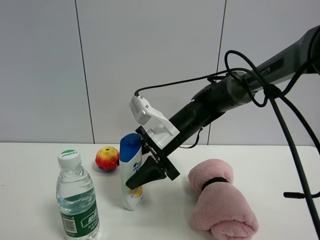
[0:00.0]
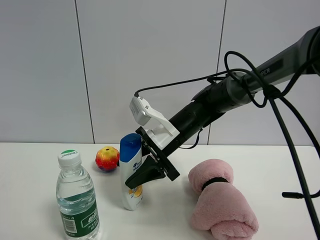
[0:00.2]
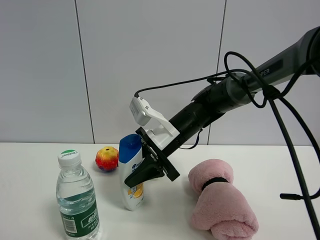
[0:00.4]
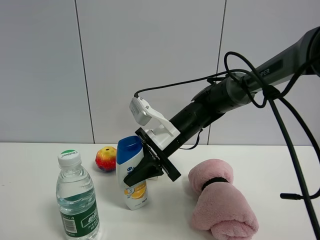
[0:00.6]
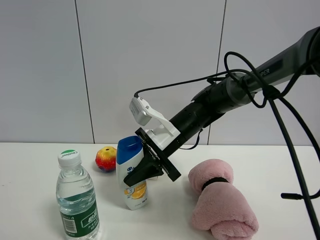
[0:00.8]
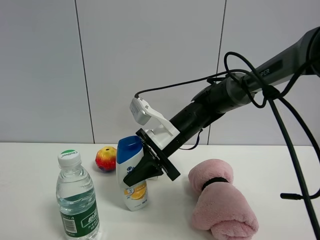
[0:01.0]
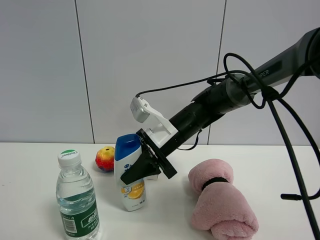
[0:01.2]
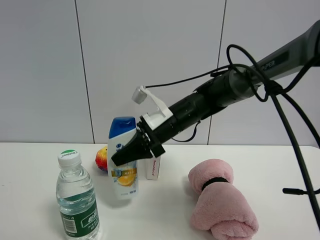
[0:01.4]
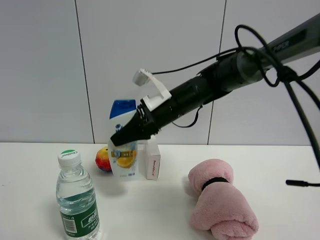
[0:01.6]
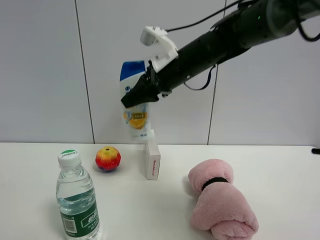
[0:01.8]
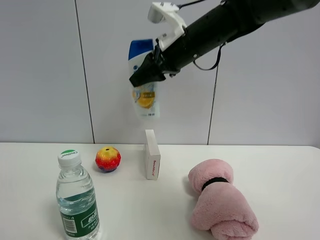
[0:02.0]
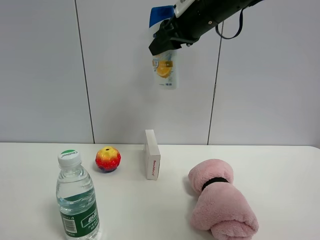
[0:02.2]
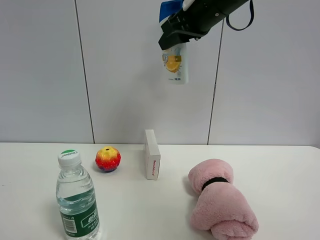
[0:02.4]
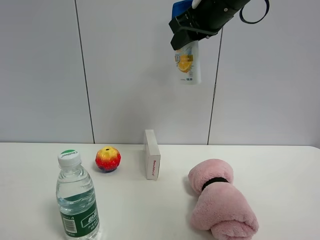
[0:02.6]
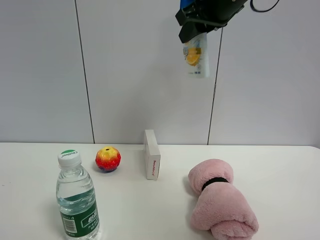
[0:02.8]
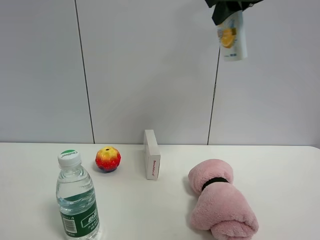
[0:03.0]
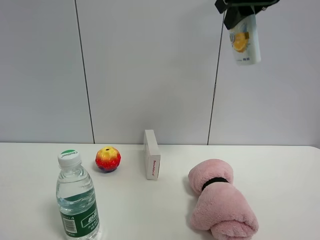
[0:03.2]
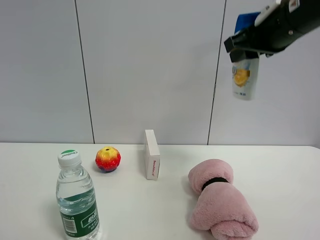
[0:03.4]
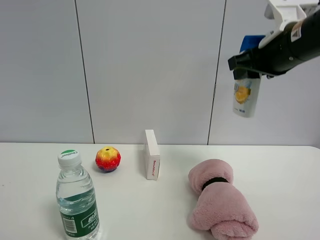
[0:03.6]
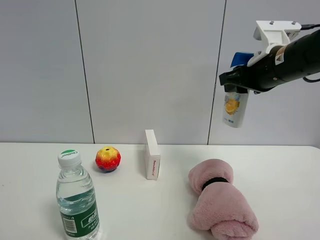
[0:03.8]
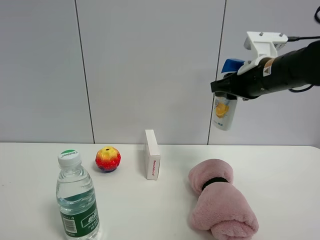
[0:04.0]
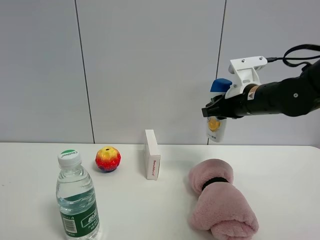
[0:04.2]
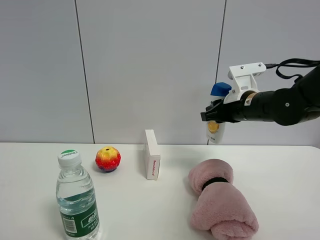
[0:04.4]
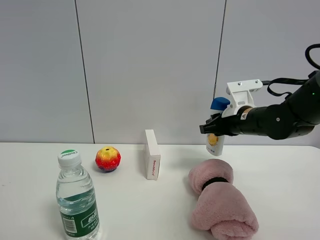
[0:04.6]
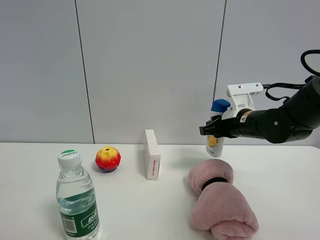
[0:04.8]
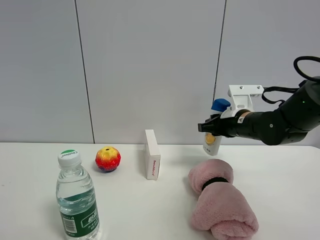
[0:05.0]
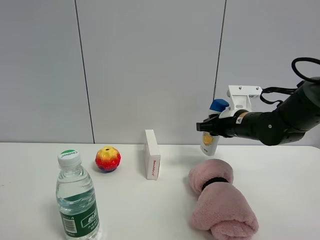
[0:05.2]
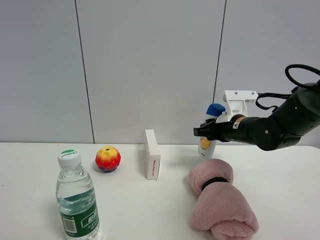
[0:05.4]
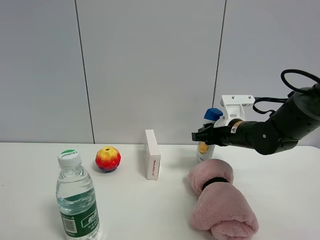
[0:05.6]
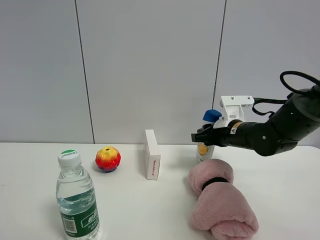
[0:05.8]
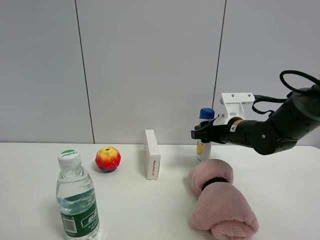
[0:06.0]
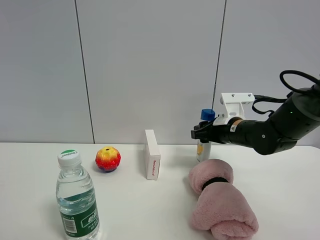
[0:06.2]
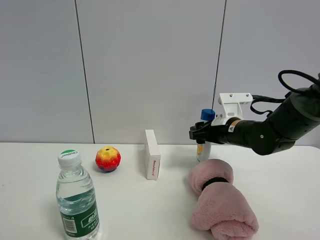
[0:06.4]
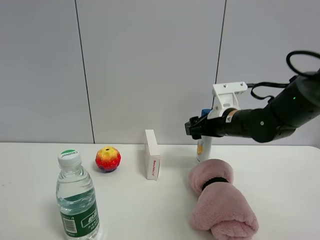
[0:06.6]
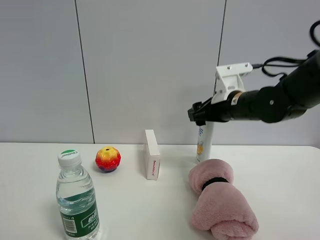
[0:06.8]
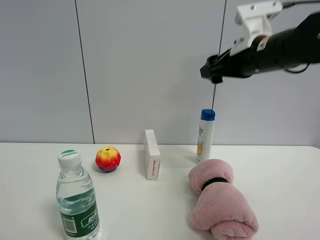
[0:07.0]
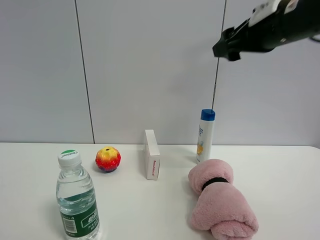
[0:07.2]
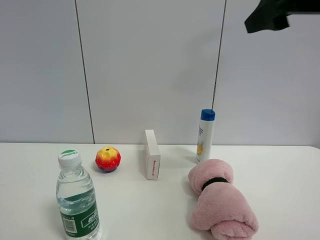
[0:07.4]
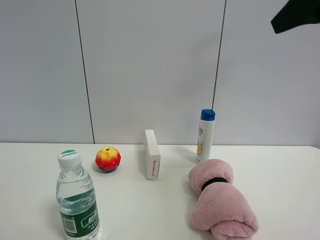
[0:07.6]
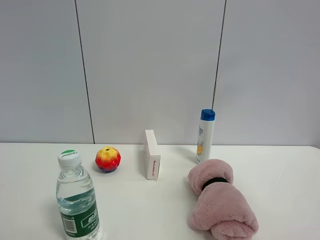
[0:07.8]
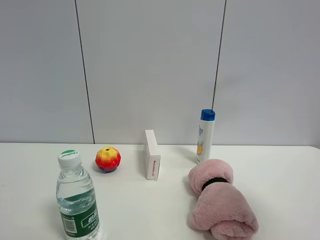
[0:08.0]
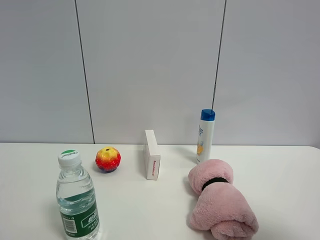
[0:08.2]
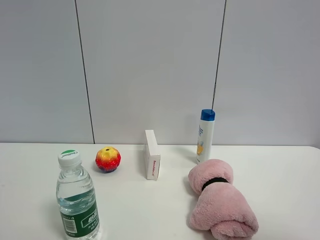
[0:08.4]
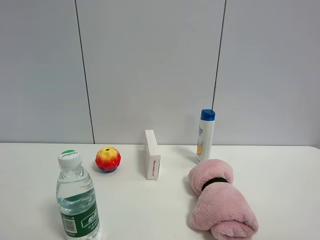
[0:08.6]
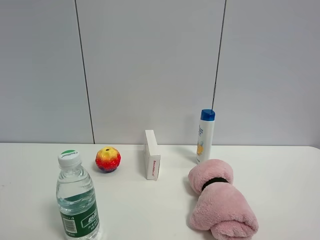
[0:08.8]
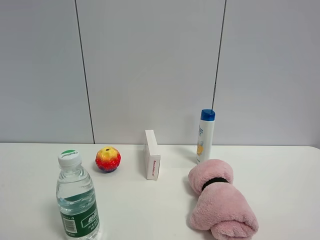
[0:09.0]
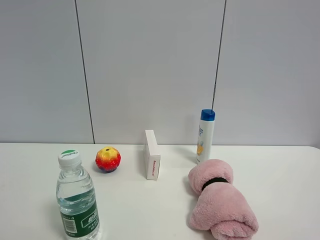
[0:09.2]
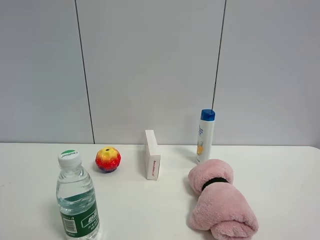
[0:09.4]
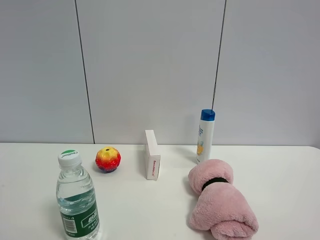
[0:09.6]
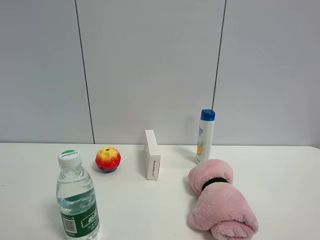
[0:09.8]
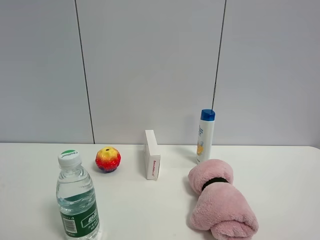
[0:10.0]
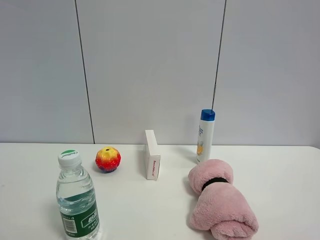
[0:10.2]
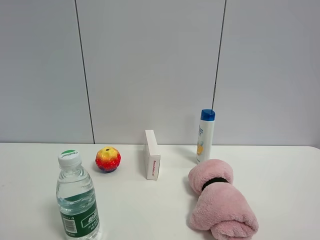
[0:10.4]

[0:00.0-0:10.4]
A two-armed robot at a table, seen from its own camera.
Task of the whole recording: the gripper move the object.
Step, 0:00.8 to 0:06.4: Place the shampoo on the table with the right gripper.
0:00.0 to 0:01.4: The right gripper closes its fingers.
0:01.4 to 0:03.0: The right gripper is displaced upward and to the right by approximately 30 cm.
0:03.0 to 0:04.4: The right gripper moves downward, roughly 25 cm.
0:04.4 to 0:06.0: The right gripper is displaced downward by roughly 5 cm, and opens its fingers.
0:06.0 to 0:07.4: The right gripper heads upward and backward, covering about 30 cm, and opens up.
0:07.4 to 0:09.0: The right gripper moves backward and downward, some 25 cm.
0:09.0 to 0:10.4: Both grippers stay put.

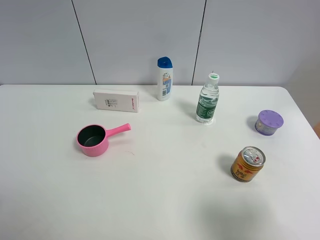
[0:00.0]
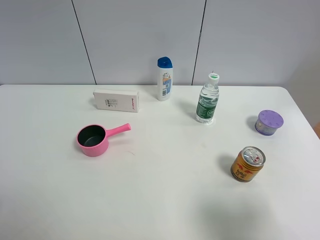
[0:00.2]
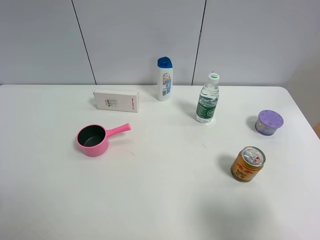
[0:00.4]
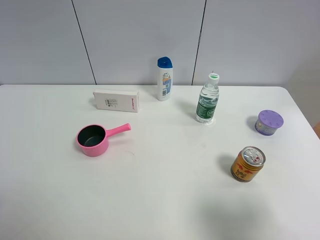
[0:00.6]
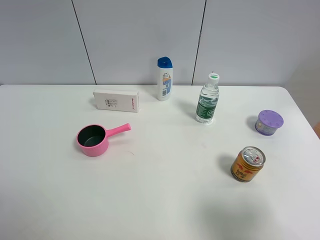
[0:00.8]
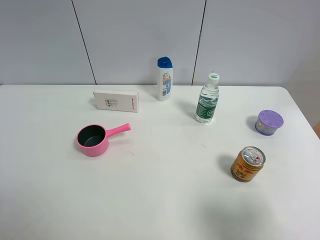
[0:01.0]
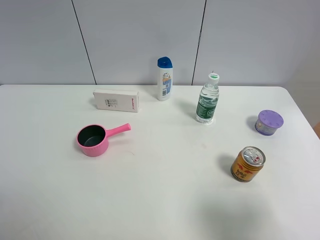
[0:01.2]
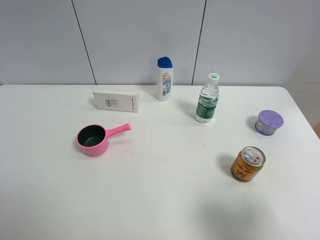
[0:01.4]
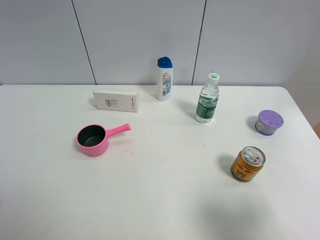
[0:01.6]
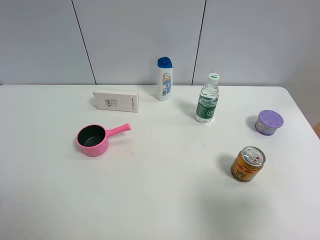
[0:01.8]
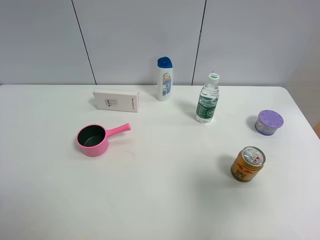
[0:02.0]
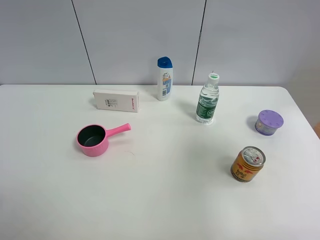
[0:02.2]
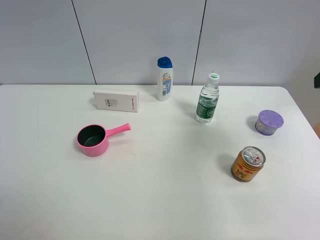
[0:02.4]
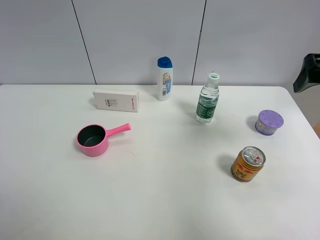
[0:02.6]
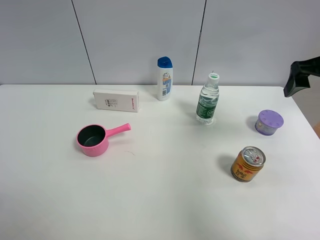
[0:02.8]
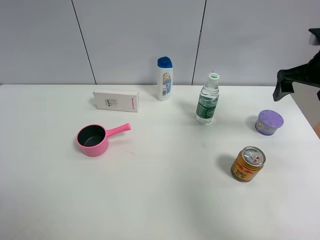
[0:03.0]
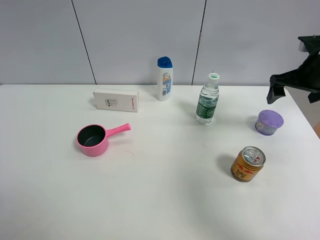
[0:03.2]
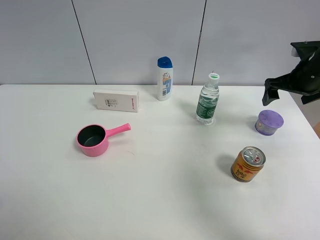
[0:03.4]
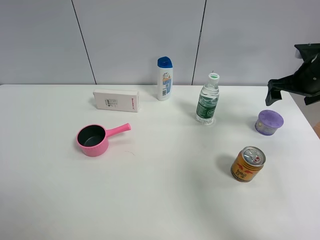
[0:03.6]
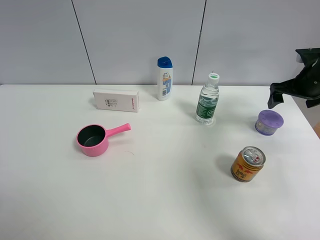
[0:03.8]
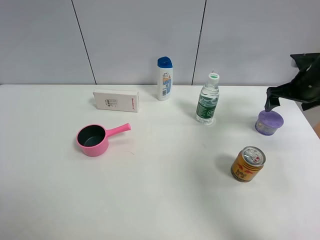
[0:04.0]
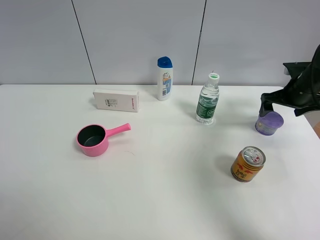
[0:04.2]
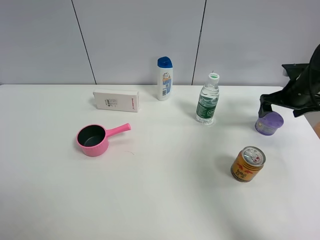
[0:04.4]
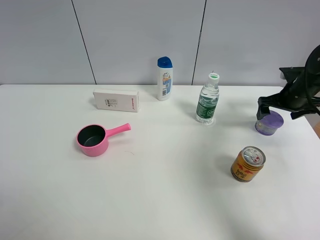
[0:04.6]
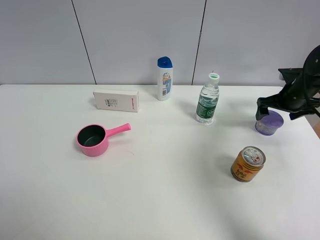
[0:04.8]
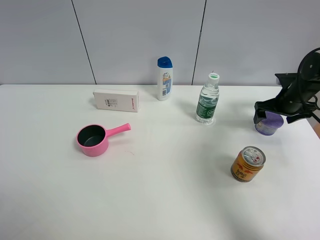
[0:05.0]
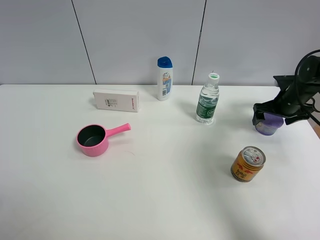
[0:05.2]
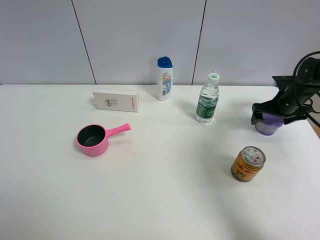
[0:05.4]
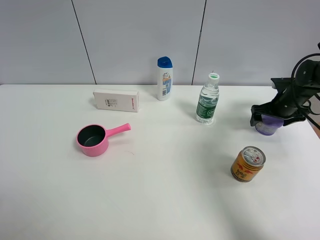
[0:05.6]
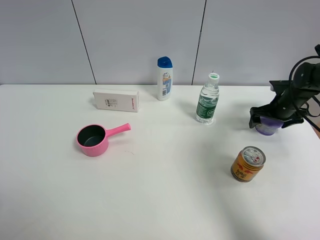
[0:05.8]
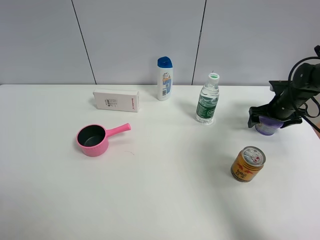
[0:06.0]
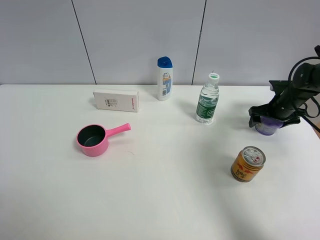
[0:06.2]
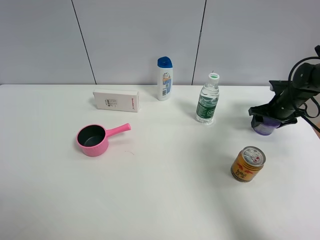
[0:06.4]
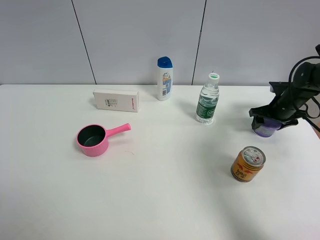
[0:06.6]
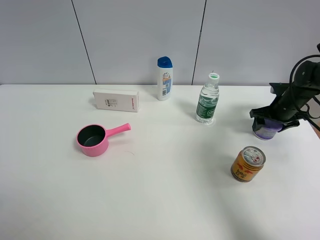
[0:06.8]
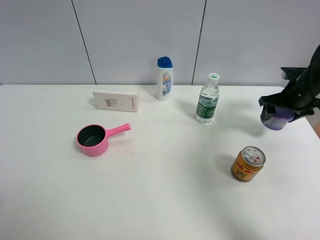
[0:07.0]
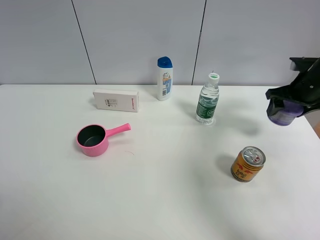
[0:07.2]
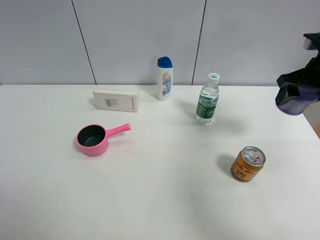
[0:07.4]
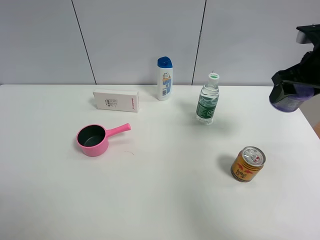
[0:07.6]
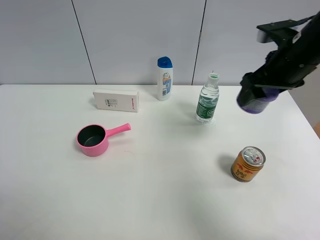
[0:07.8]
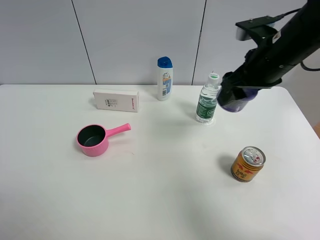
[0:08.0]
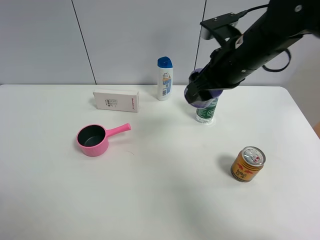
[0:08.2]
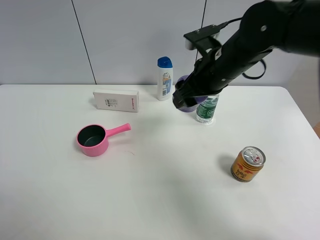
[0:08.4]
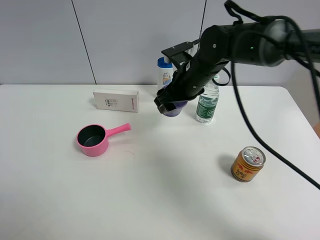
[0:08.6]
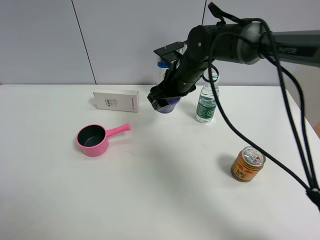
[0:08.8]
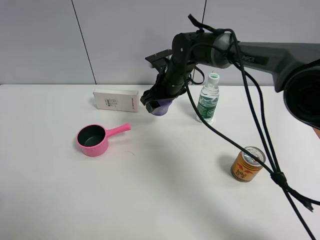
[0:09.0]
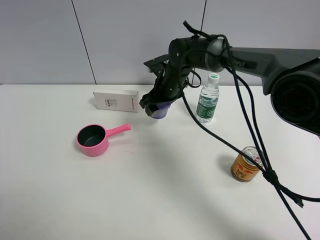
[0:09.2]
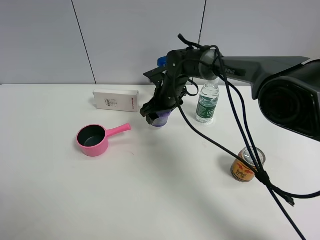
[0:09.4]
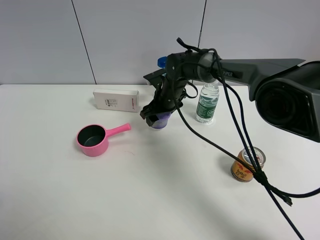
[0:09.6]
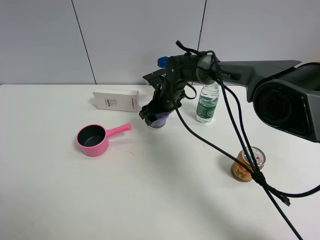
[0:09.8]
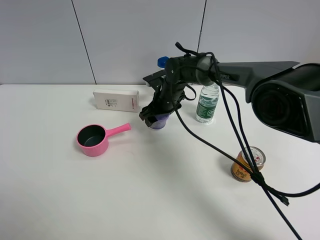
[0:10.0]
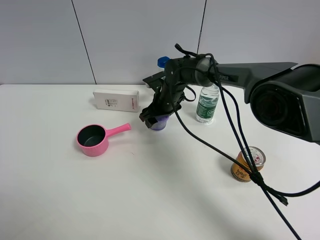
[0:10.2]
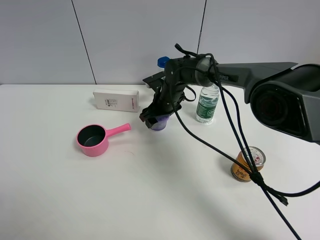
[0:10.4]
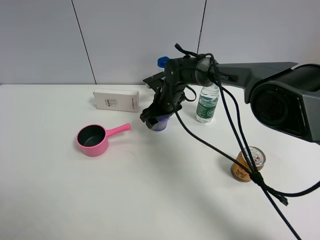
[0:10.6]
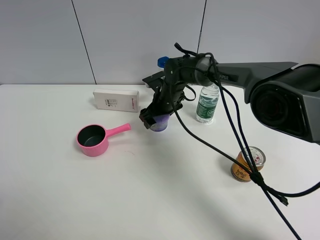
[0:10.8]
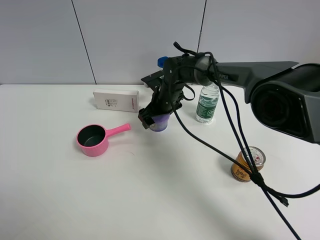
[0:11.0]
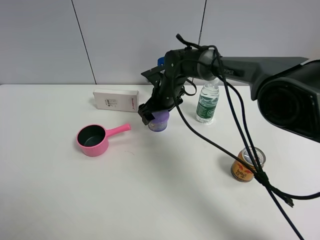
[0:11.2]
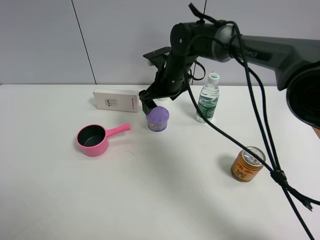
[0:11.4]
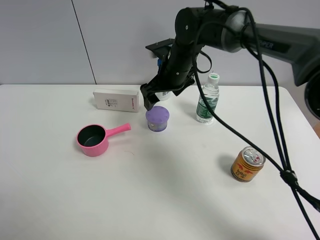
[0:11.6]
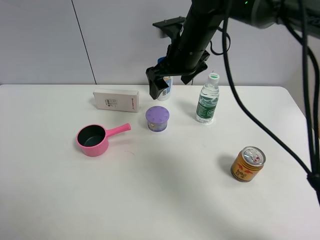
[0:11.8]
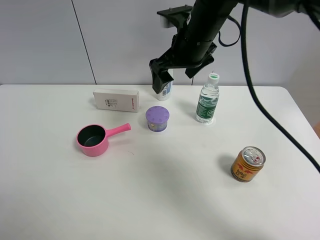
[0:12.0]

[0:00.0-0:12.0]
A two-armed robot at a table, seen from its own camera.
Task of the whole recording: the gripper move the object.
Step, 0:00.0 to 0:06.4: Grasp the Incense box with the right gripper.
Step, 0:06.6 to 0:11.2: Place the Incense box on the table with the right gripper.
0:00.0 to 0:01.6: Neither gripper changes place.
0:01.6 to 0:03.0: The right gripper travels forward by approximately 30 cm.
0:03.0 to 0:04.4: The right gripper is displaced downward and forward by some 15 cm.
0:04.4 to 0:06.0: The right gripper shifts approximately 5 cm downward.
0:06.0 to 0:07.6: The right gripper goes about 20 cm upward and backward, and closes.
0:07.6 to 0:09.0: The right gripper shifts approximately 30 cm to the left, downward and forward.
0:09.0 to 0:10.4: The right gripper heads downward, covering roughly 5 cm.
0:10.4 to 0:12.0: The right gripper shifts about 20 cm upward, and opens up.
